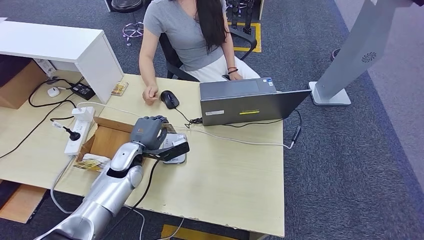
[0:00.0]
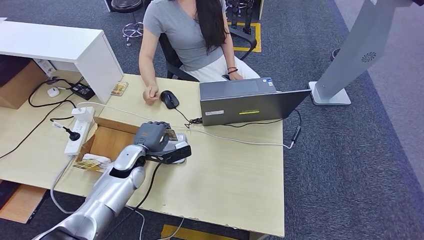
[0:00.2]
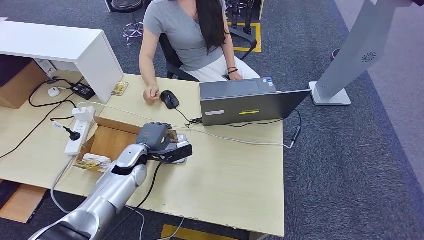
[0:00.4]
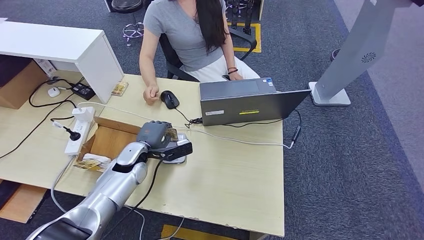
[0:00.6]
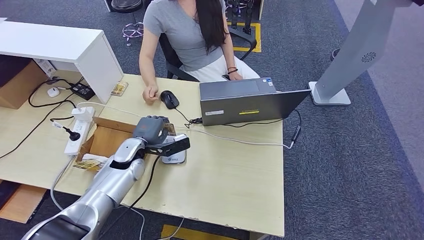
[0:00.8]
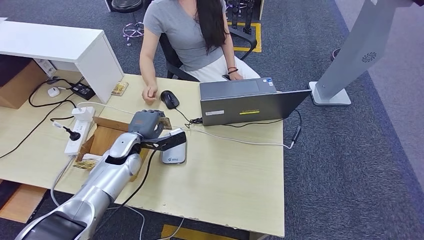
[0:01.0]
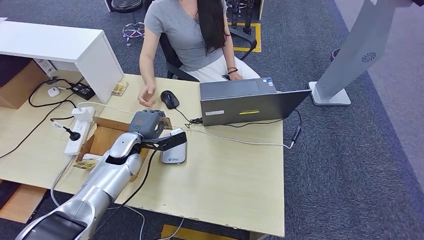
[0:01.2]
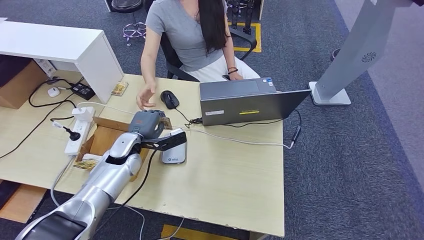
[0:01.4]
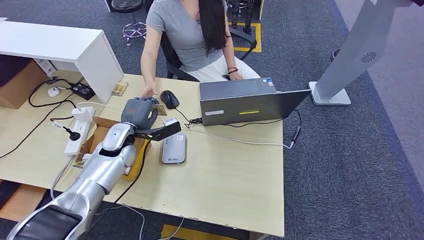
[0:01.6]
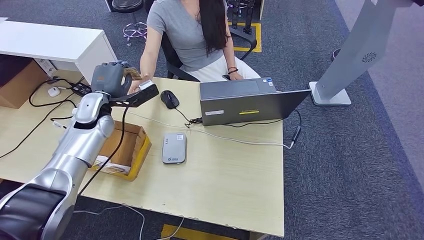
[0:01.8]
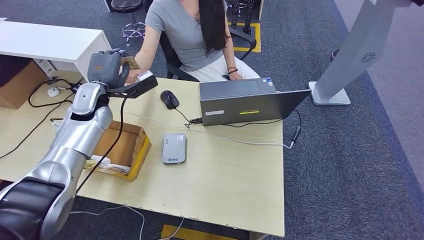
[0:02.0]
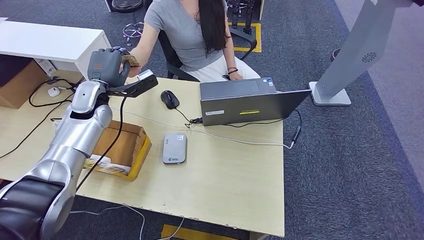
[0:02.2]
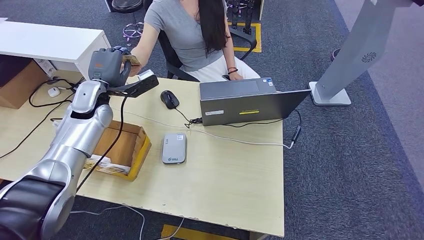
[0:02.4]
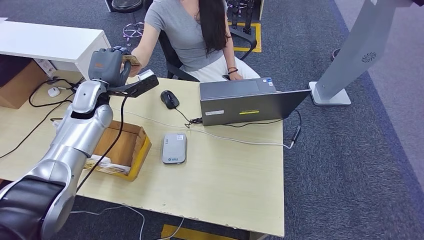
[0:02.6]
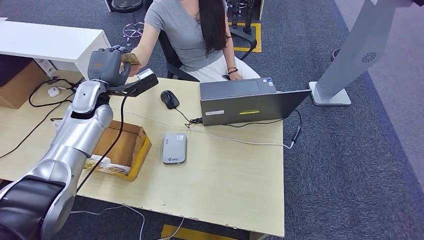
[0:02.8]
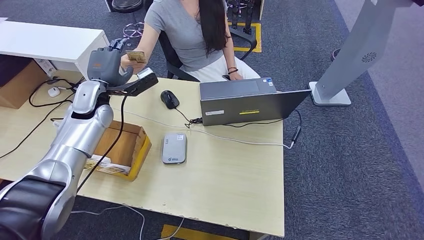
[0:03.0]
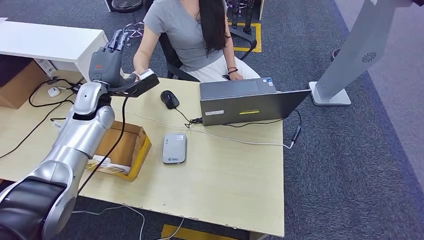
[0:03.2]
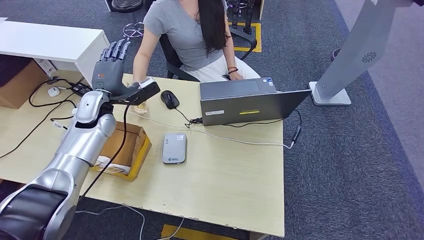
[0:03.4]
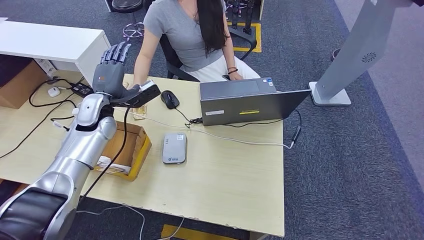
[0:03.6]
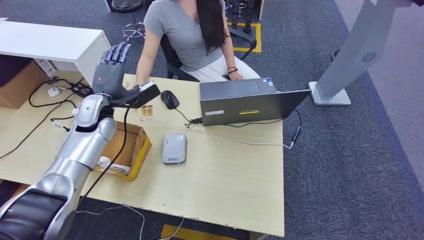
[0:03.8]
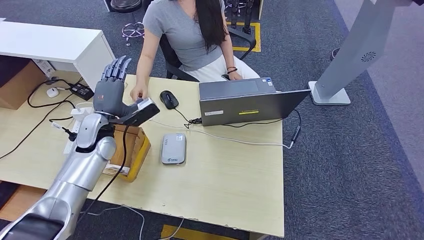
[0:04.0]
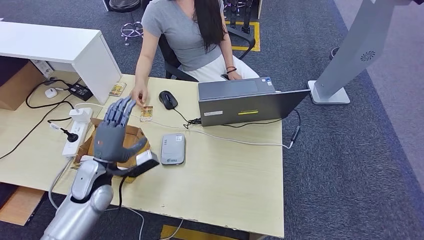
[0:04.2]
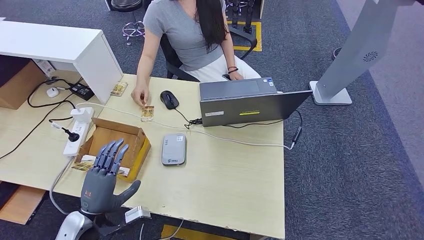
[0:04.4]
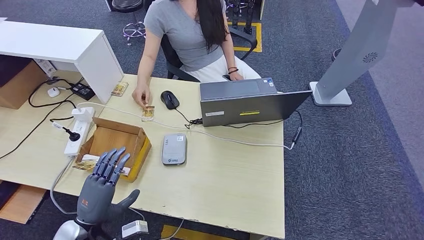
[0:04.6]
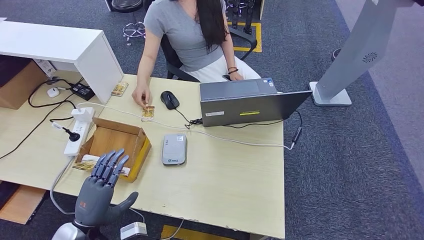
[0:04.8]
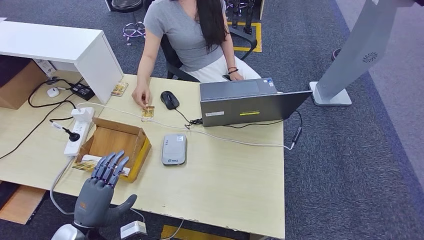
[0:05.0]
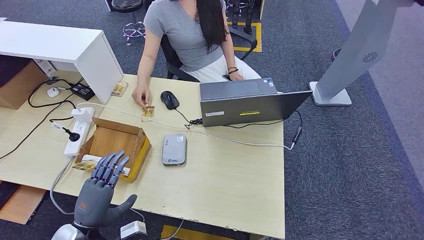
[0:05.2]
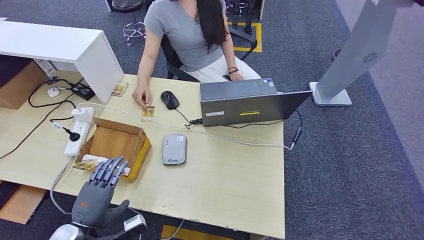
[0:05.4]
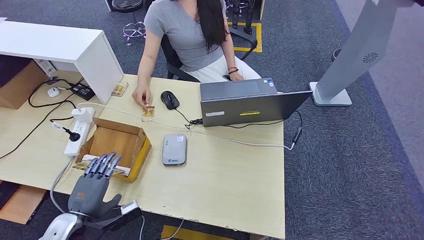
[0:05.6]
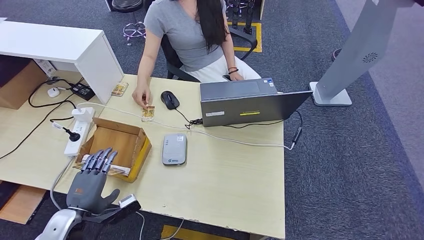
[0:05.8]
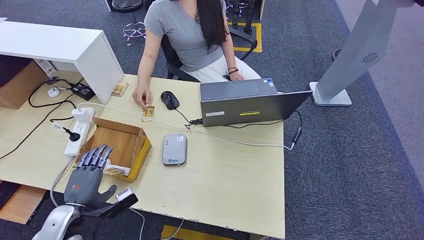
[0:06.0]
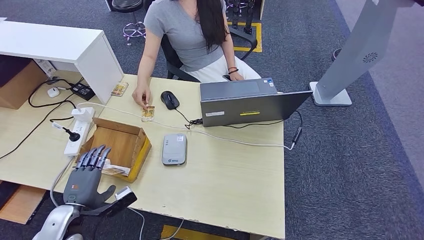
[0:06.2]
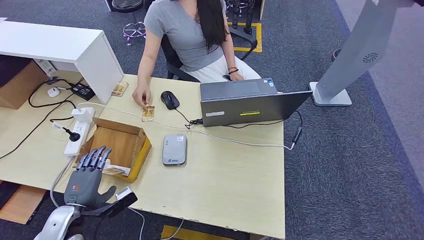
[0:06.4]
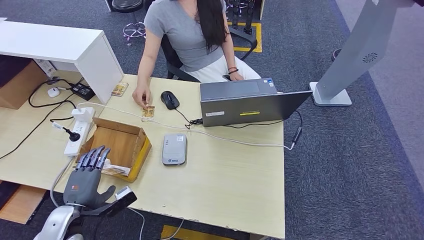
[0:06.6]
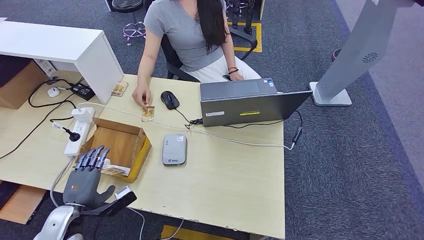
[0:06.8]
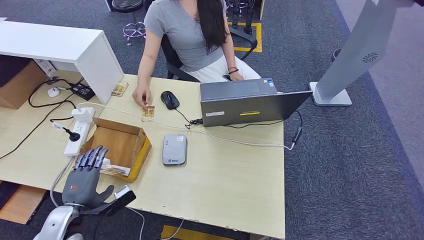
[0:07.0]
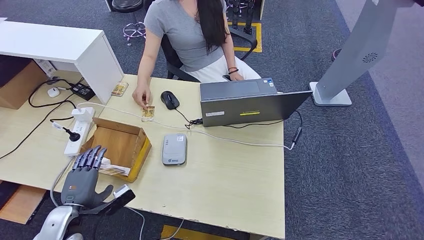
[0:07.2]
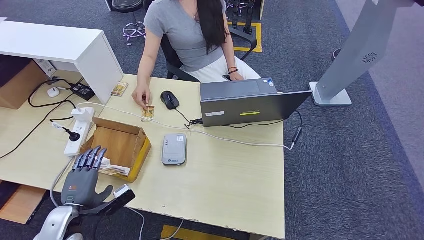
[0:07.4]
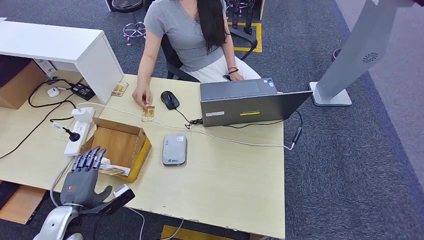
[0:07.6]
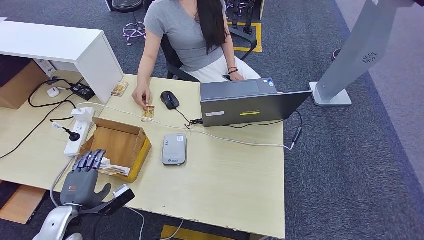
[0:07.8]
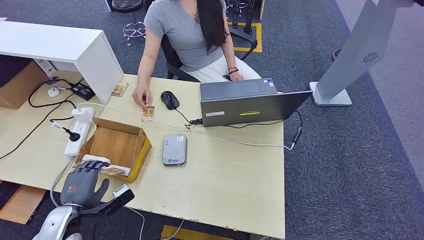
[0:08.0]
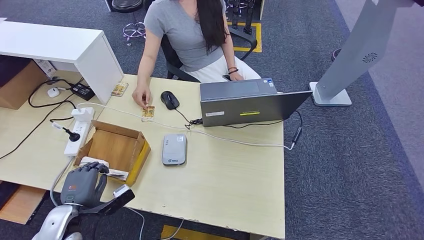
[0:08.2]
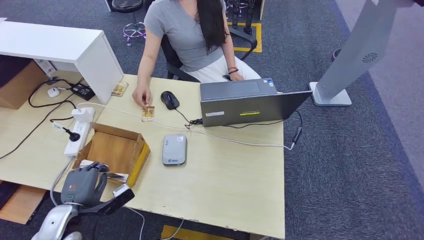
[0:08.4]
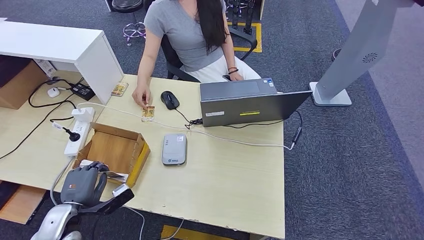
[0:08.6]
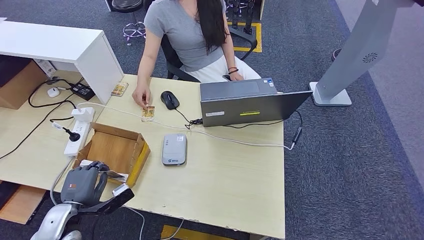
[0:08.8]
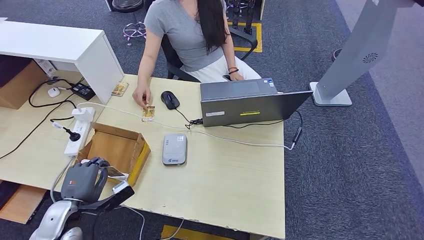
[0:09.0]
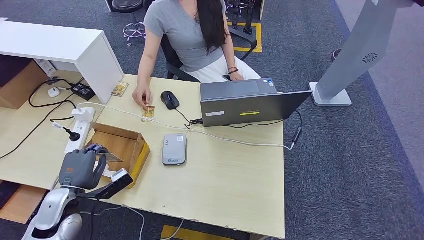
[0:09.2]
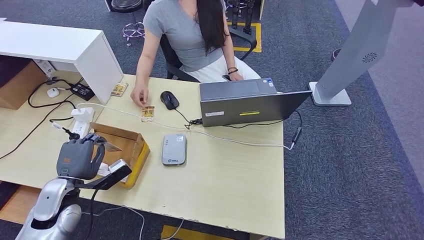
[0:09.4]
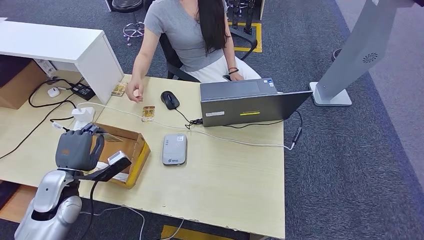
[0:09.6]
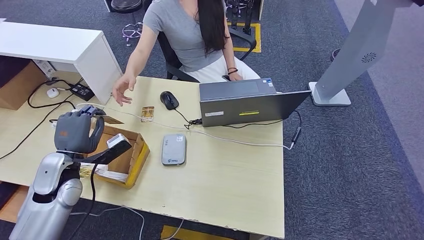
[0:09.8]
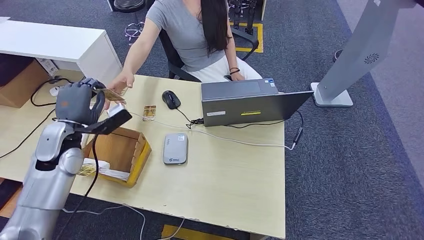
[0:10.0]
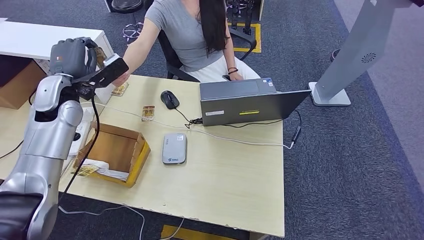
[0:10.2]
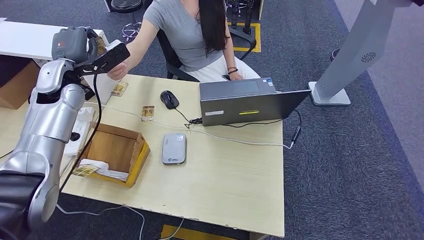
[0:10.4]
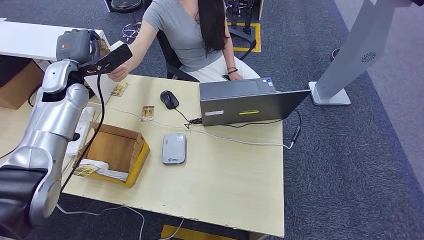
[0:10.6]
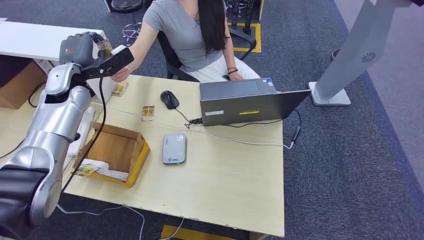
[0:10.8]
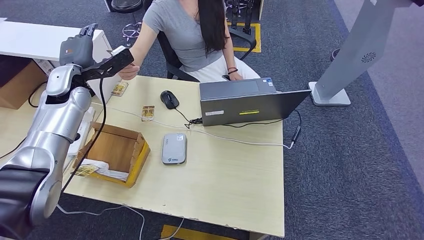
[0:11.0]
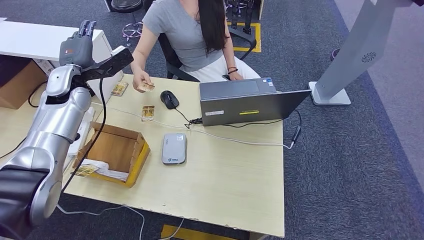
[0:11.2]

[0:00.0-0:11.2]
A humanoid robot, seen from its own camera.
Step, 0:01.6 to 0:03.0: Hand the ID card to the person.
Step, 0:08.2 to 0:09.2: Pick up the room key from the key card box.
Step, 0:09.8 to 0:11.2: Hand the room key to the person.
0:00.0 to 0:01.6: The left hand moves approximately 5 cm.
0:01.6 to 0:03.2: The left hand goes approximately 10 cm upward and to the left.
0:03.2 to 0:04.8: The left hand goes approximately 35 cm backward and downward.
0:04.8 to 0:06.4: The left hand goes roughly 5 cm to the left.
0:06.4 to 0:08.0: There are only small adjustments of the hands.
0:08.0 to 0:09.6: The left hand moves forward and upward, some 10 cm.
0:09.6 to 0:11.2: The left hand moves forward and upward, approximately 25 cm.
